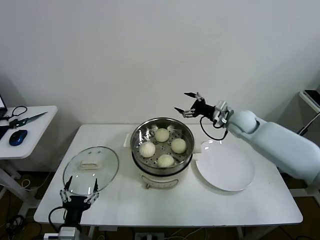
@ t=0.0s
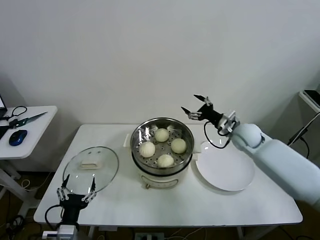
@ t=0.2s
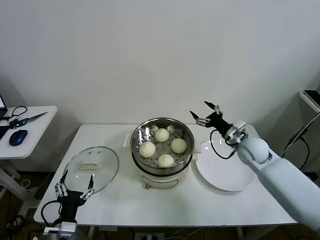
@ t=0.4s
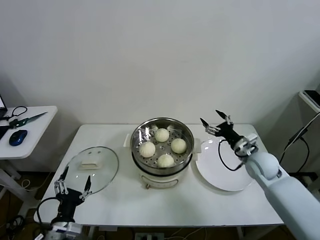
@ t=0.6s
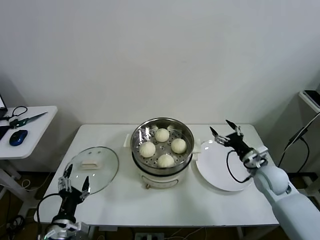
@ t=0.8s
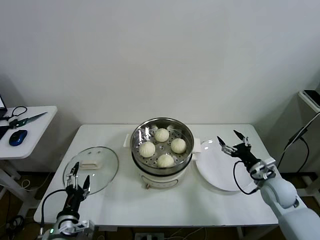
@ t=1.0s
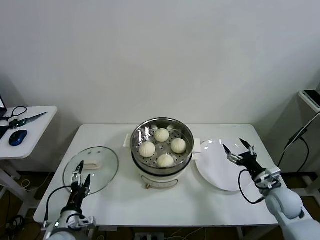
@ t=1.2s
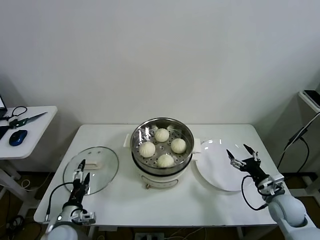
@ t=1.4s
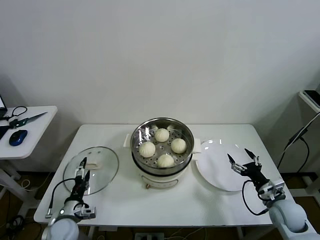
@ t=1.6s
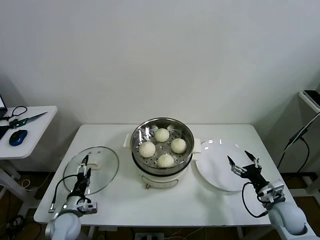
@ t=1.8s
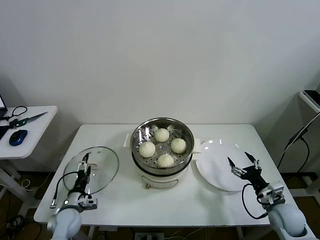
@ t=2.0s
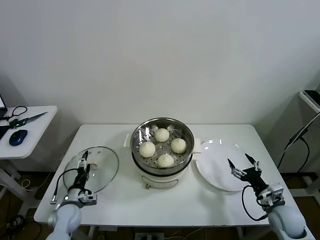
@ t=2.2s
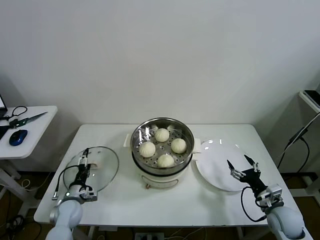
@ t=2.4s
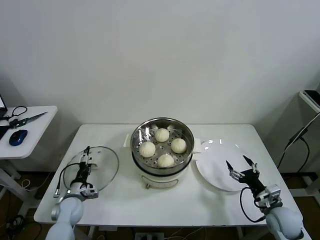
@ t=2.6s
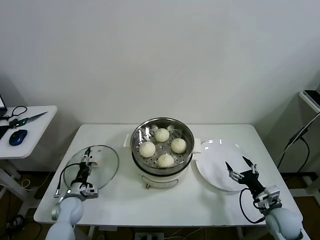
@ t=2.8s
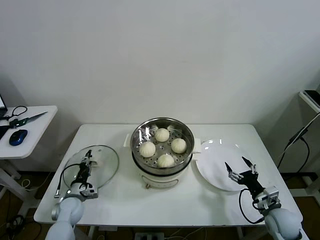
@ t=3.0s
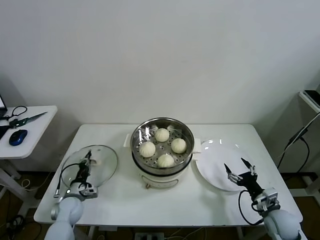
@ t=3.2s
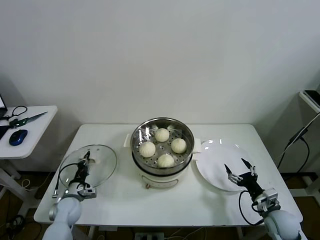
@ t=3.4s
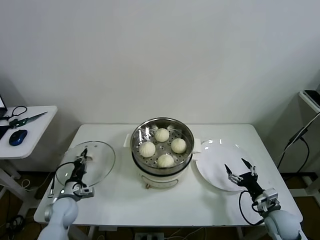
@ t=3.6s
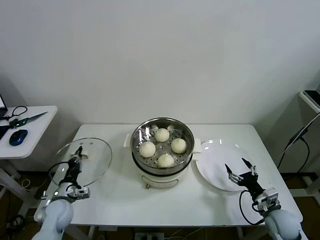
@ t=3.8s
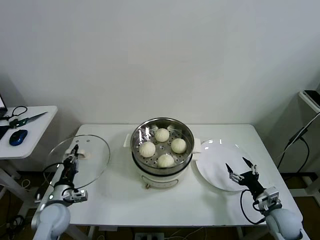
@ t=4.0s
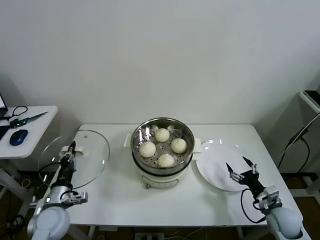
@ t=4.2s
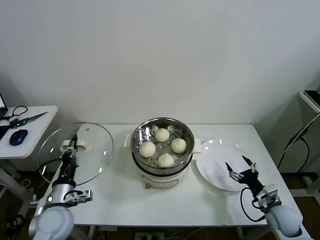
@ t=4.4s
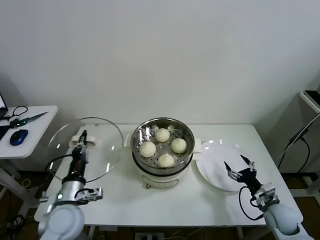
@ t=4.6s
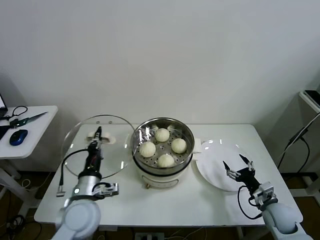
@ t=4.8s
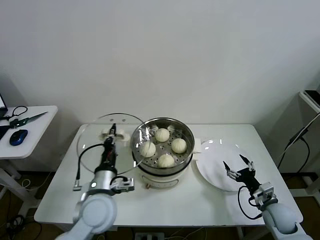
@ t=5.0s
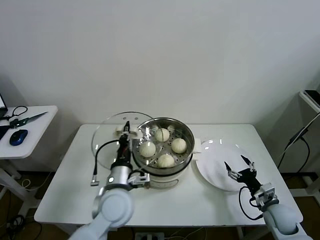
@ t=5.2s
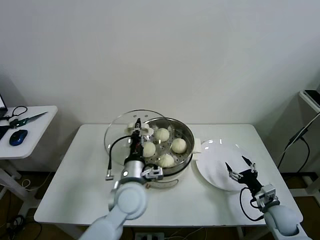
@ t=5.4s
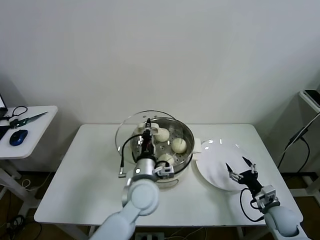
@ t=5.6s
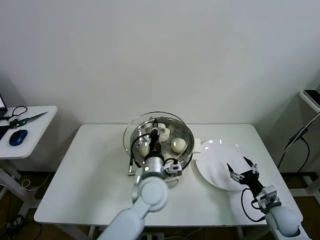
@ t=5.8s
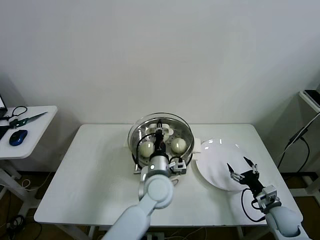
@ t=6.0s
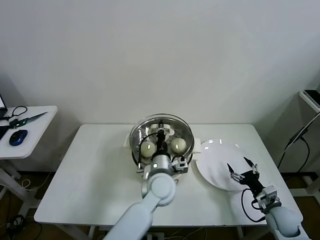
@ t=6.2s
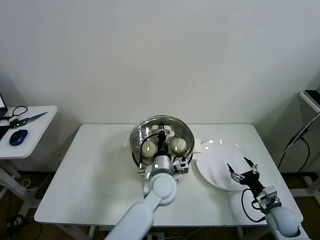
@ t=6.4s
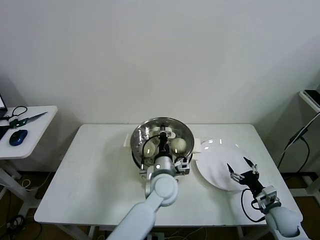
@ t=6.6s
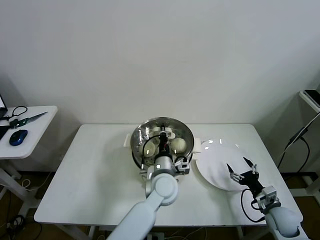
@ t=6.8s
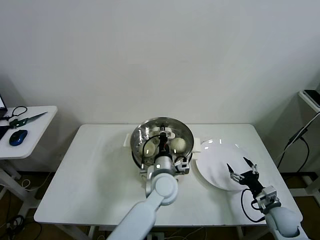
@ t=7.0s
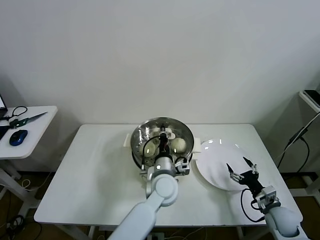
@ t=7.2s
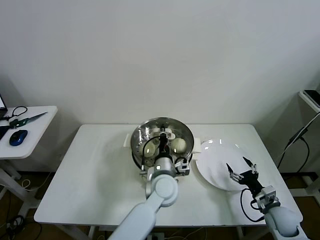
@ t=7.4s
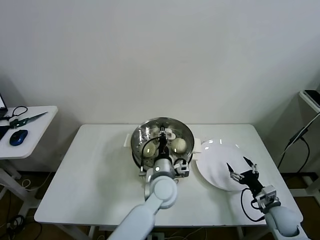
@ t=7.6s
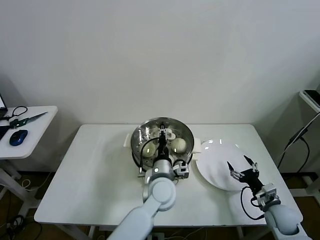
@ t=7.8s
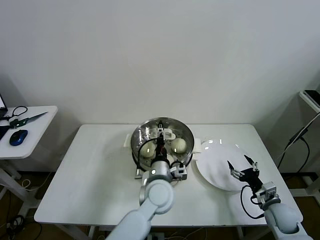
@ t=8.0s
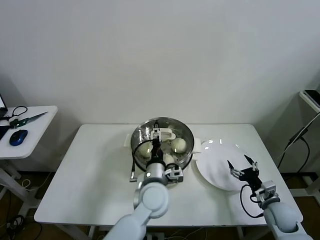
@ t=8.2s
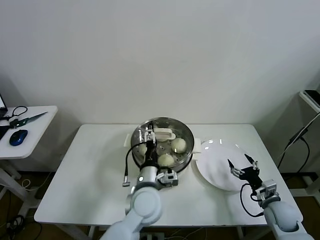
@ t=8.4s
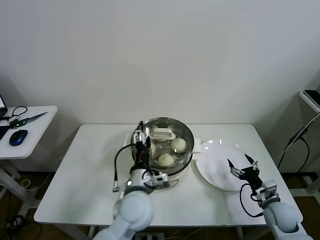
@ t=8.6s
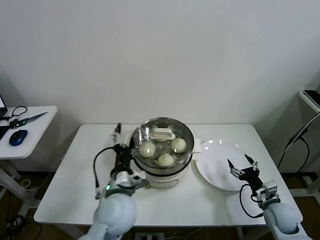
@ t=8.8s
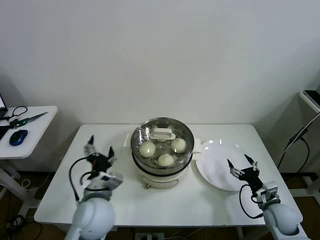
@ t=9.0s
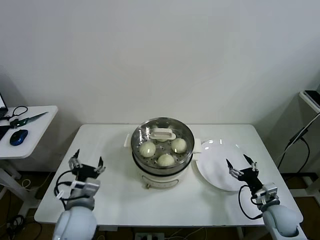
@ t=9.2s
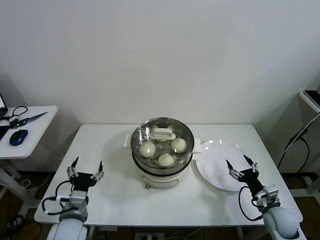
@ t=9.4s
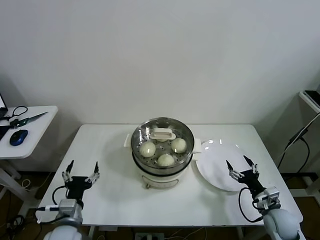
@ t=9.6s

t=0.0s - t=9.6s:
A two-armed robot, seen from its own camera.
Task of the whole recording: take steamed baozi put them in steamer then cover it.
Step, t=0.0s - t=3.2s: Grasp the pot lid with left gripper.
Step, t=3.4s - t=7.4s: Place the pot lid on the steamer with left gripper.
t=0.0s - t=1.6s: The right gripper shifts about 30 cm backward, downward and to the right. The left gripper travels forward, downward and to the left by roughly 15 cm.
t=1.6s - t=3.2s: The left gripper heads forward, covering roughly 10 cm, and closes its fingers.
t=3.2s - t=4.8s: The left gripper is displaced upward, to the right and backward by approximately 25 cm.
t=4.8s - t=6.4s: The left gripper is displaced to the right and forward by some 25 cm.
t=6.4s - t=8.0s: The left gripper opens up.
t=8.0s - t=9.6s: The left gripper travels to the left and backward by about 30 cm.

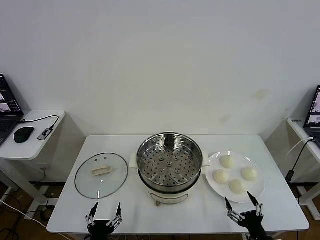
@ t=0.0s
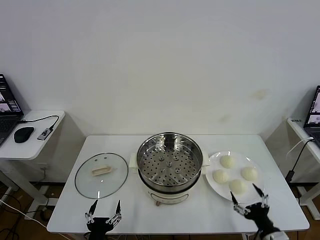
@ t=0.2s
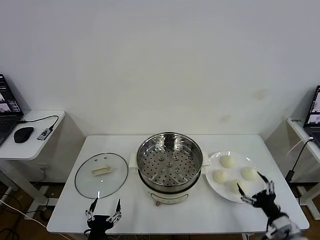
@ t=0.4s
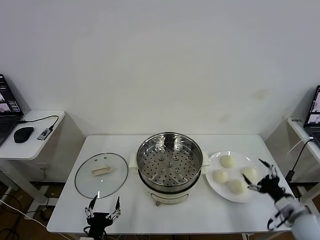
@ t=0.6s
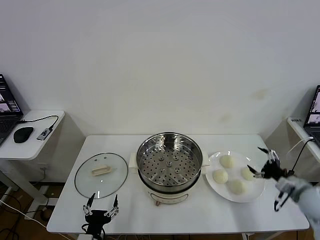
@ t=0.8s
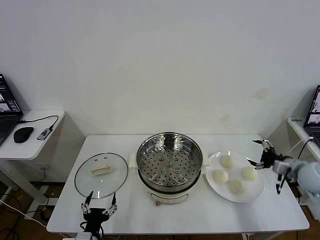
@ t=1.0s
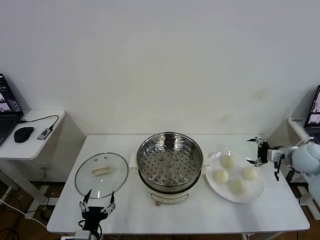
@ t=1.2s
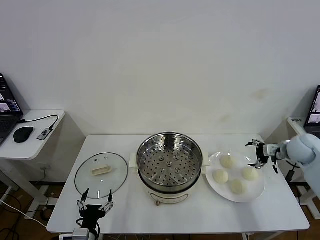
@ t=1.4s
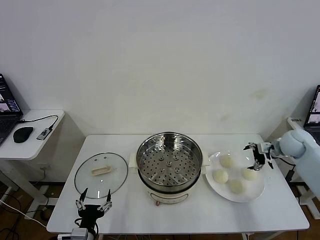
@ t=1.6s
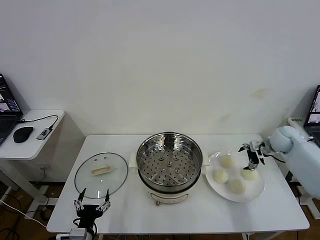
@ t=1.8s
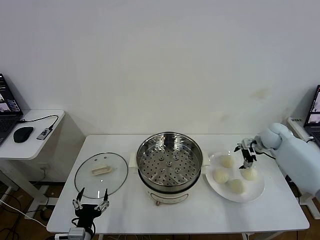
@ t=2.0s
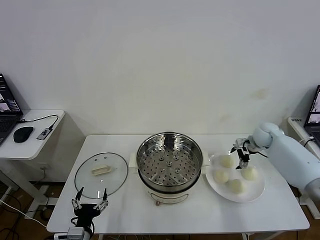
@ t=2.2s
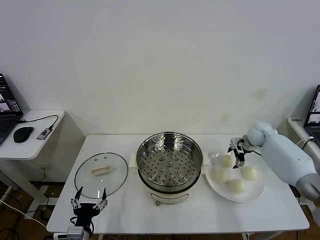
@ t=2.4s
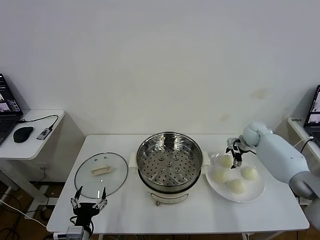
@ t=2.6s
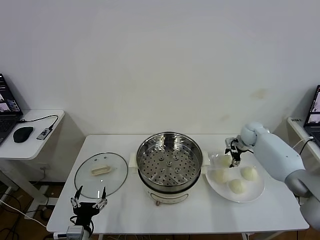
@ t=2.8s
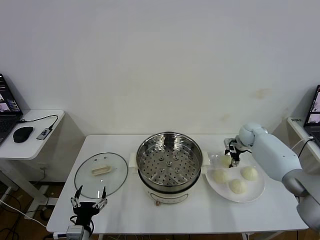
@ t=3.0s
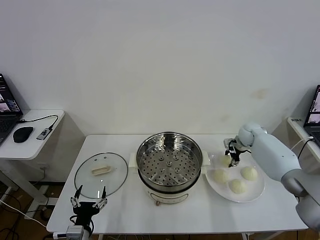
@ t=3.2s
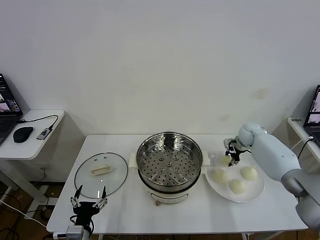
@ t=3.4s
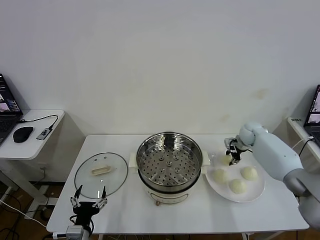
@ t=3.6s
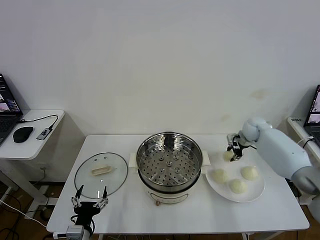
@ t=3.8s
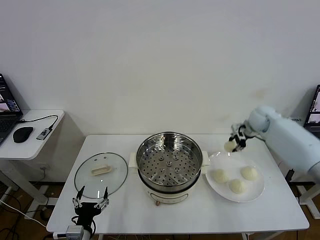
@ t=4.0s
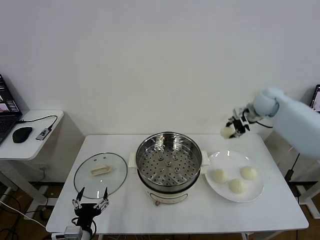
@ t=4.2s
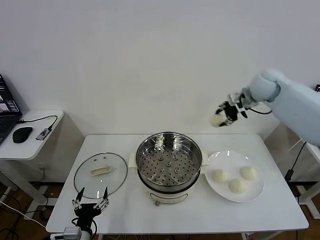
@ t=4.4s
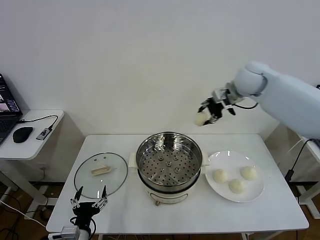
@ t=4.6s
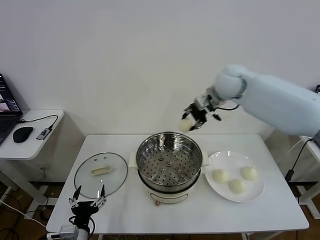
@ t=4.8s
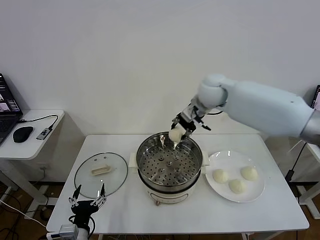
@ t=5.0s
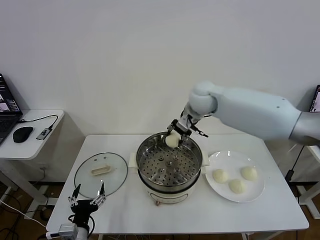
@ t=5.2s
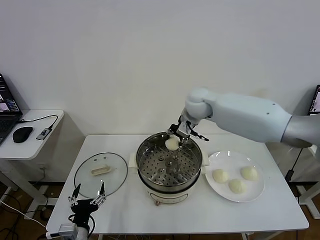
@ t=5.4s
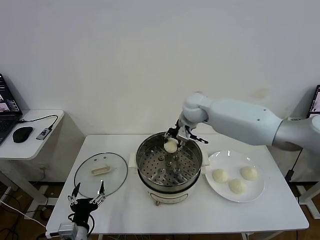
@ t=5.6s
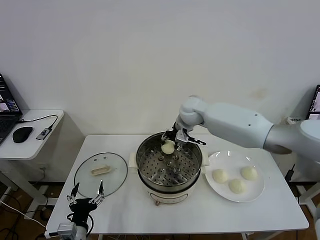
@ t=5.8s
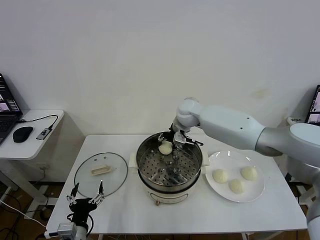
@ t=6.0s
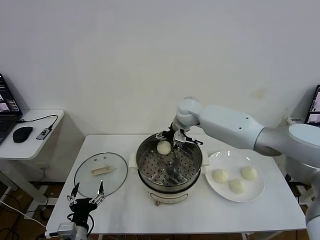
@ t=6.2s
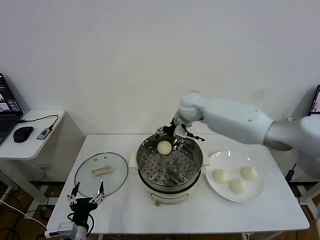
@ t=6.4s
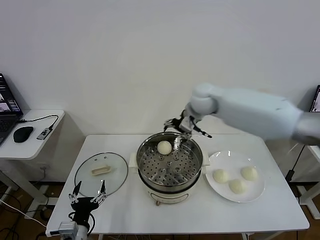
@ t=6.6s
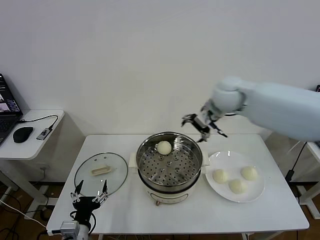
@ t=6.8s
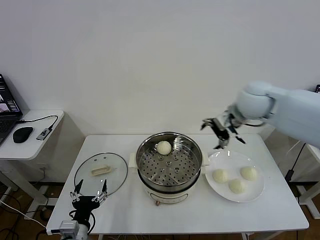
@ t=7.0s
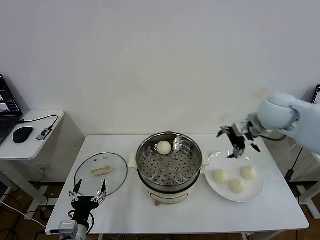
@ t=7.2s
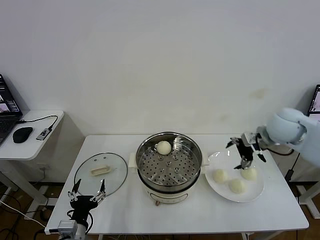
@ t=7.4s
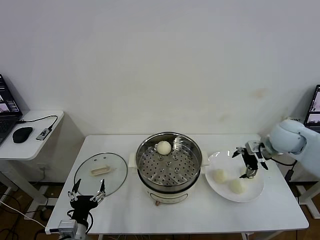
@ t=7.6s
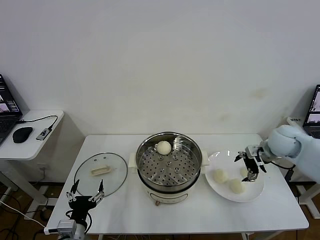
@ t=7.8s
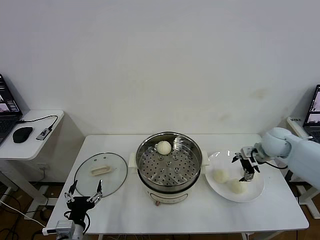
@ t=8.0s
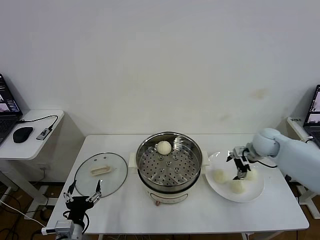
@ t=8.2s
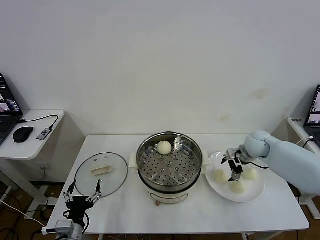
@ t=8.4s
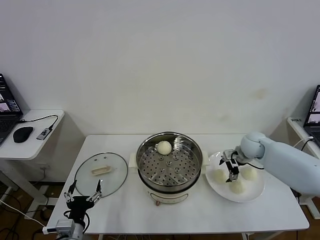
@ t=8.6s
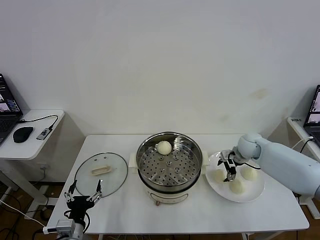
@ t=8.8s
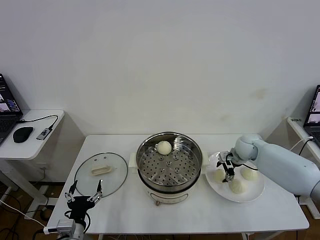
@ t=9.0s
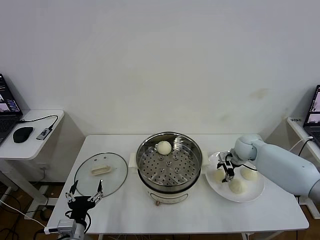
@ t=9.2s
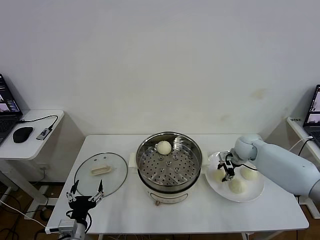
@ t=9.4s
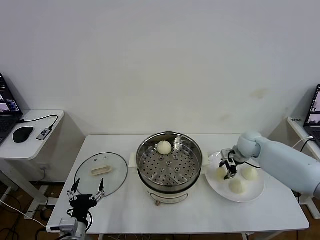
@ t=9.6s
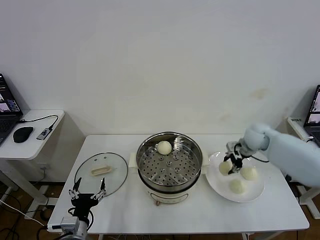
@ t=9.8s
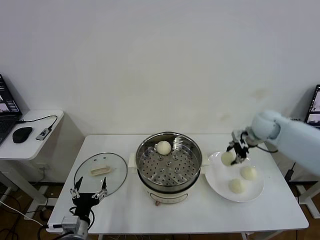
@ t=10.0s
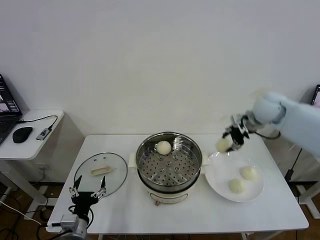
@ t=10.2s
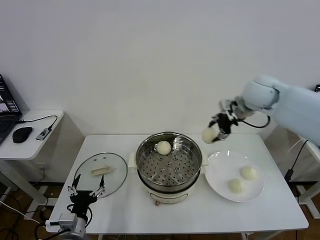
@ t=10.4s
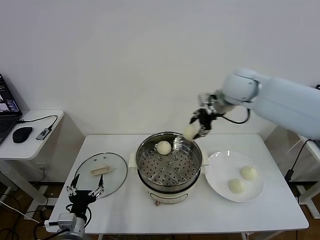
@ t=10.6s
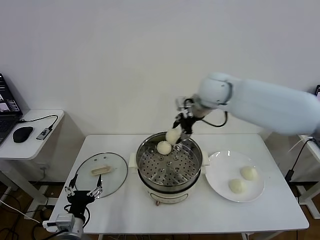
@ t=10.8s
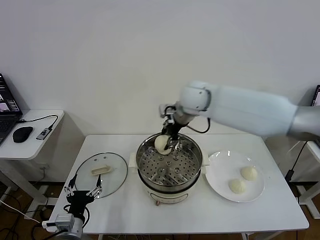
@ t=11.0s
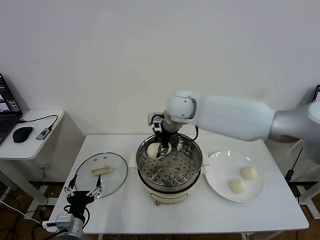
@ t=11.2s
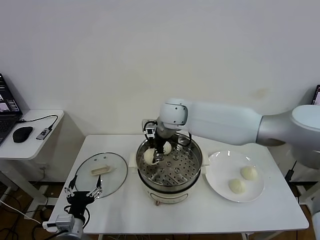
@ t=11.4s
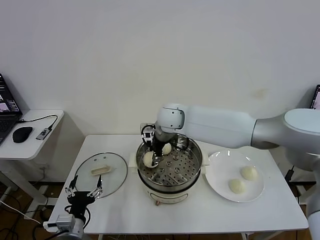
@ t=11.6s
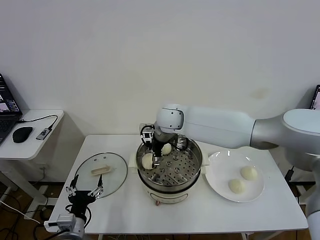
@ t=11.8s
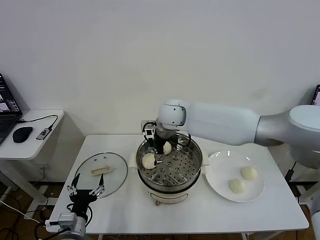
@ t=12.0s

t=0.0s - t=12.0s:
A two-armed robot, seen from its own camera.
Task of the whole recording: take steamed baozi put them in steamer then cover it.
Step, t=0.0s - t=3.6s: Grasp the baozi in the plate with right gripper.
Step, t=3.8s - t=6.2s: Place the baozi on the steamer with right gripper.
Step, t=6.4s - t=9.6s: Grasp the baozi in the plate with right gripper.
Step, t=9.8s - t=12.0s: Place the baozi on the steamer with right gripper.
t=1.6s - t=3.0s: The right gripper heads forward, to the left and downward, covering about 15 cm, and closes its fingers.
t=3.0s - t=4.4s: The right gripper shifts approximately 25 cm upward, and closes its fingers.
t=4.4s - t=6.0s: The right gripper is displaced to the left and downward by about 25 cm, and opens its fingers.
t=6.0s - t=7.6s: The right gripper moves to the right and backward, about 30 cm.
t=7.6s - t=9.0s: The right gripper moves downward, forward and to the left, some 15 cm.
t=9.0s - t=10.4s: The right gripper goes approximately 25 cm upward.
t=10.4s - t=12.0s: The right gripper goes some 20 cm to the left, and opens up.
